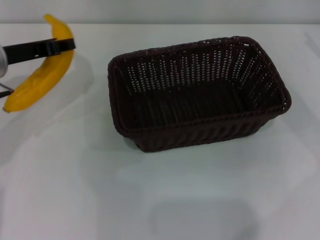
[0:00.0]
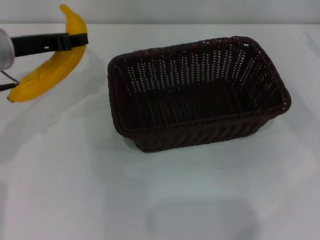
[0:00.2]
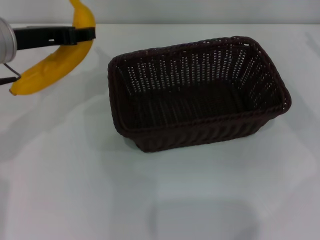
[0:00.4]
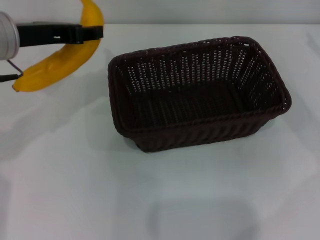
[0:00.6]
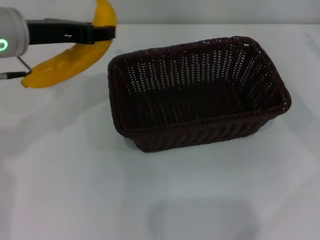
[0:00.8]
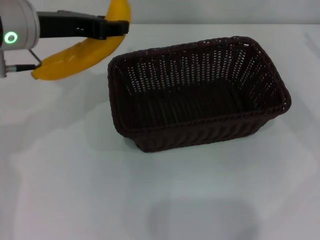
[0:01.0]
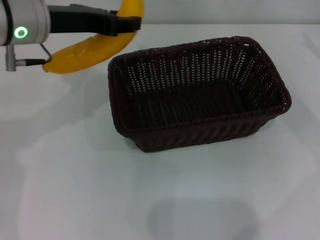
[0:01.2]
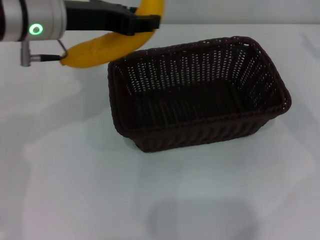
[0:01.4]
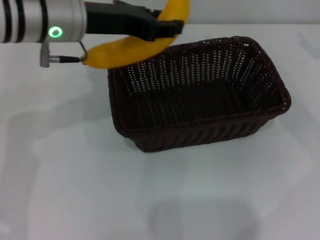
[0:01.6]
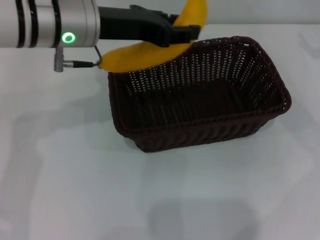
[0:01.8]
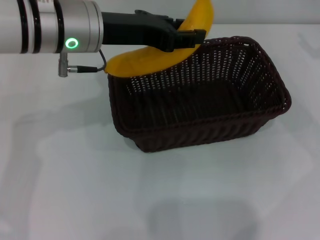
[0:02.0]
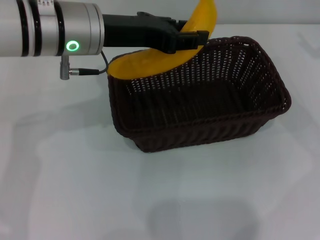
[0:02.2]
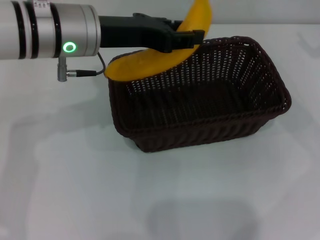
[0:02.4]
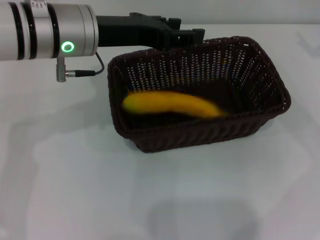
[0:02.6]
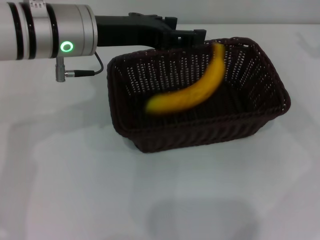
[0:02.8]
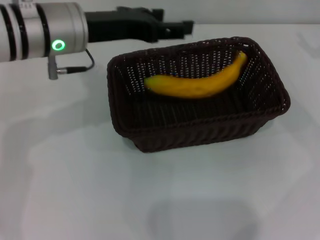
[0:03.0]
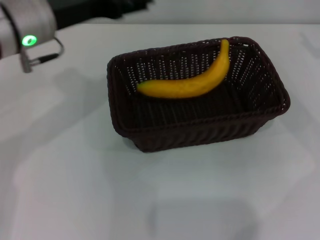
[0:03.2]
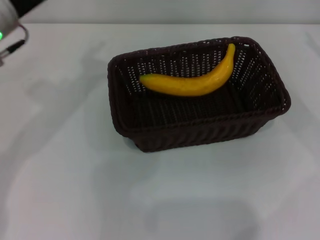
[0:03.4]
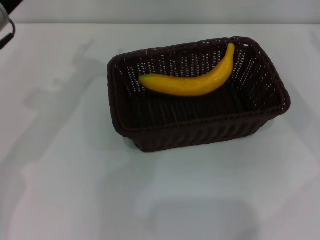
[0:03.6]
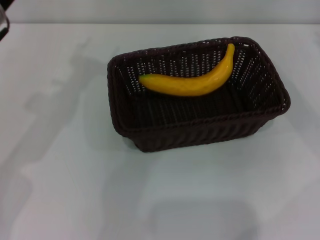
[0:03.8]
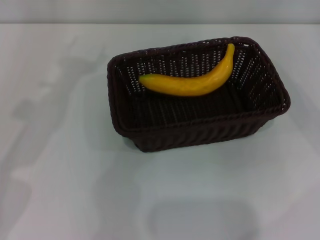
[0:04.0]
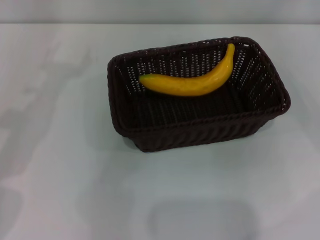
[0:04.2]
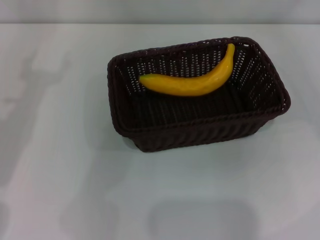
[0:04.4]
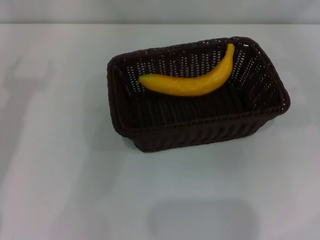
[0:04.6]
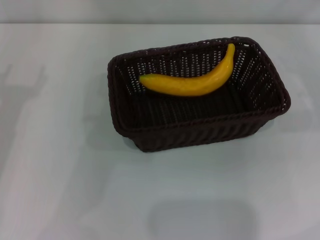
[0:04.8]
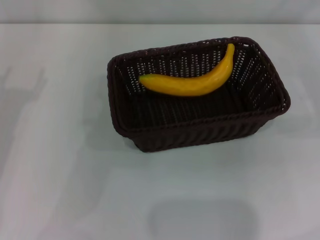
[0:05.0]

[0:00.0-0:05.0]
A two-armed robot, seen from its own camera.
Step, 0:00.0 to 0:02.6: Place the banana into the dark basket with the left gripper.
0:00.0 to 0:01.6: The left gripper moves to the right and upward, some 15 cm.
0:01.6 to 0:03.4: The left gripper heads to the left, covering roughly 5 cm, and opens up.
0:03.4 to 0:05.0: The left gripper travels to the left and backward by approximately 10 cm.
